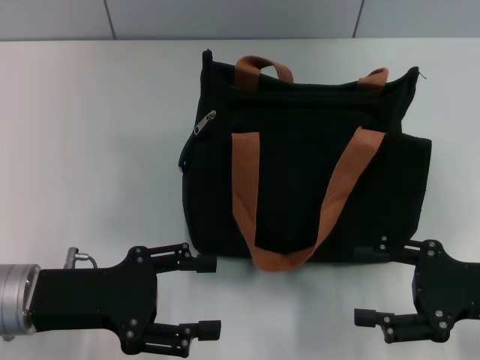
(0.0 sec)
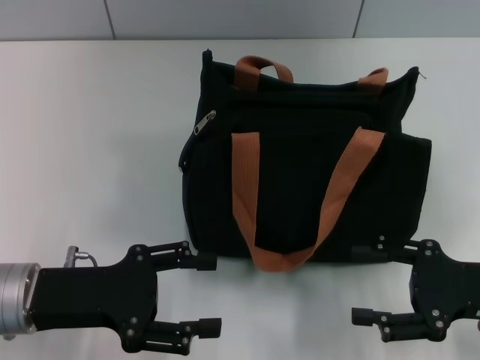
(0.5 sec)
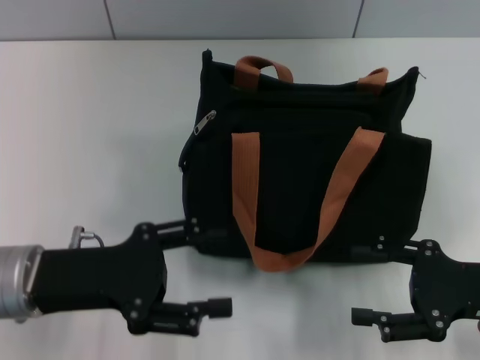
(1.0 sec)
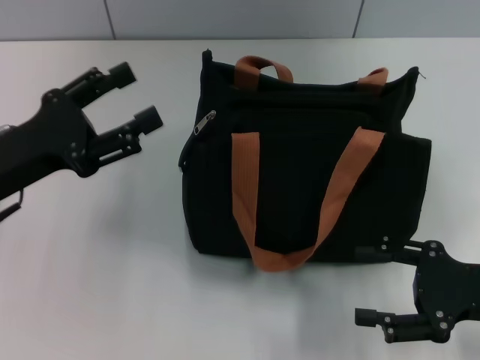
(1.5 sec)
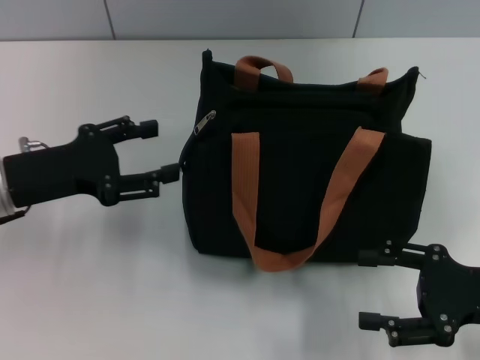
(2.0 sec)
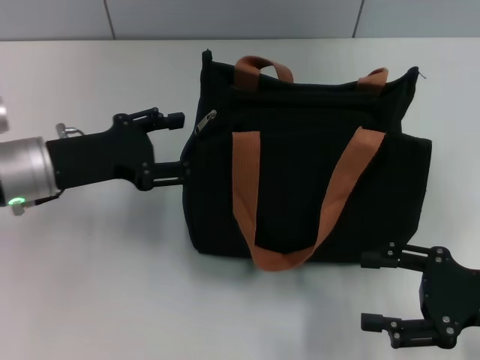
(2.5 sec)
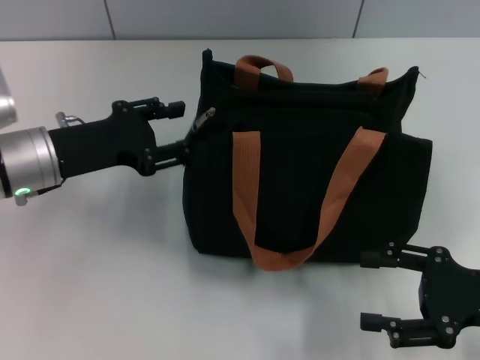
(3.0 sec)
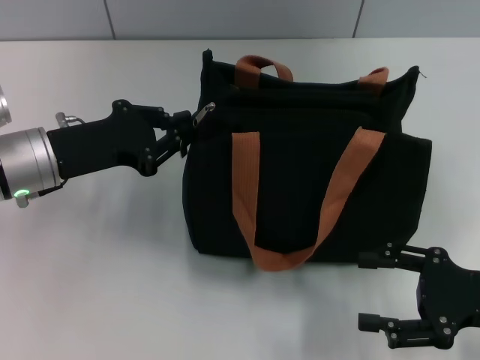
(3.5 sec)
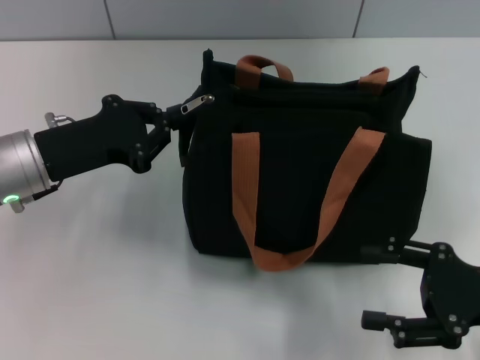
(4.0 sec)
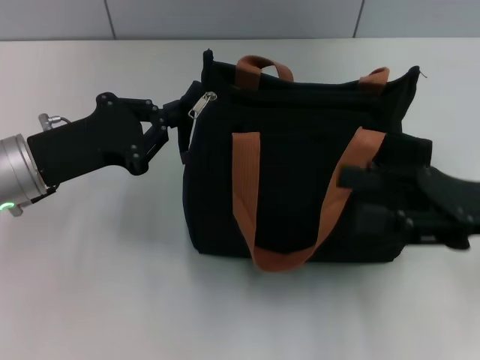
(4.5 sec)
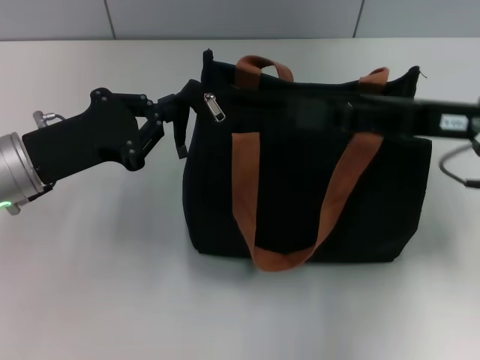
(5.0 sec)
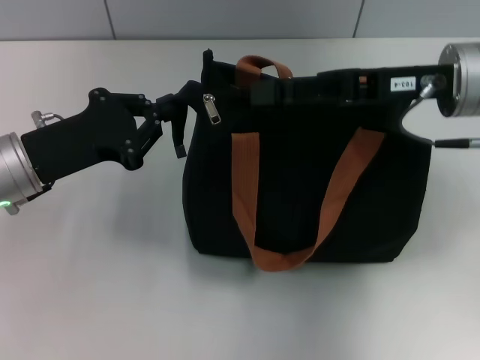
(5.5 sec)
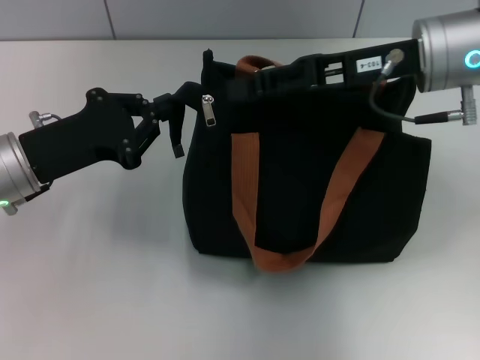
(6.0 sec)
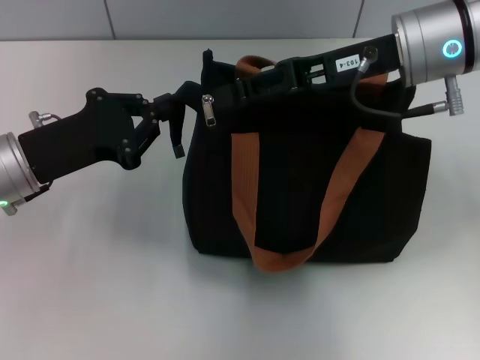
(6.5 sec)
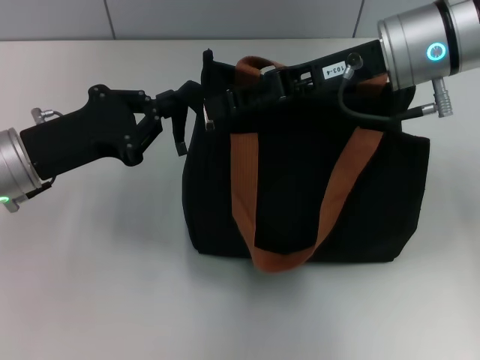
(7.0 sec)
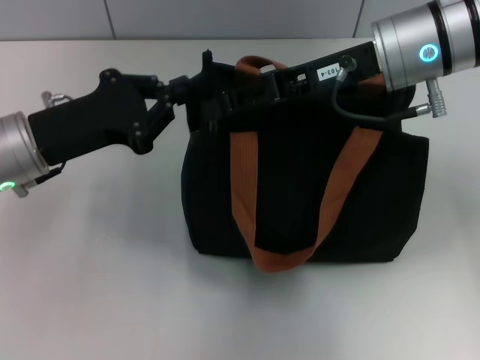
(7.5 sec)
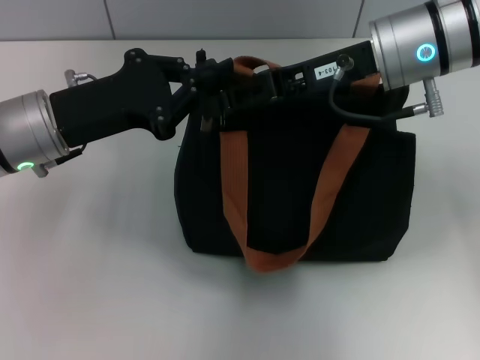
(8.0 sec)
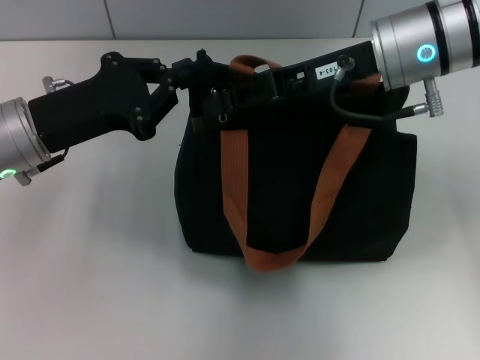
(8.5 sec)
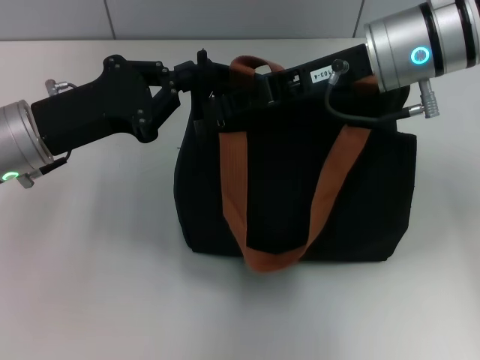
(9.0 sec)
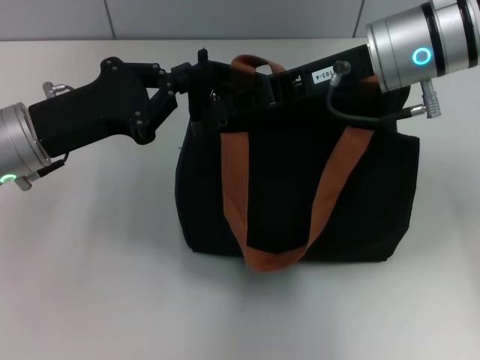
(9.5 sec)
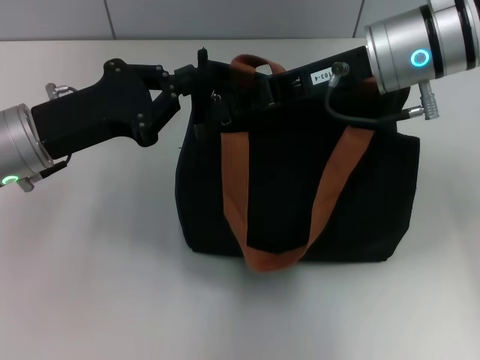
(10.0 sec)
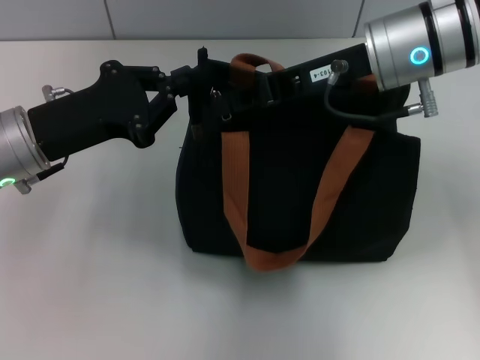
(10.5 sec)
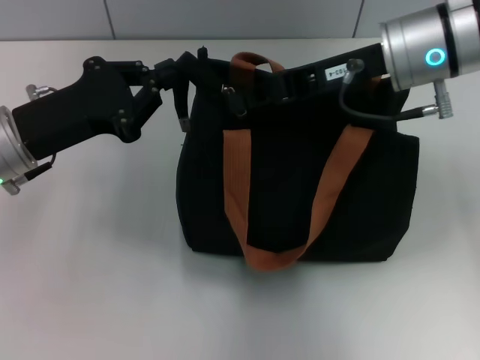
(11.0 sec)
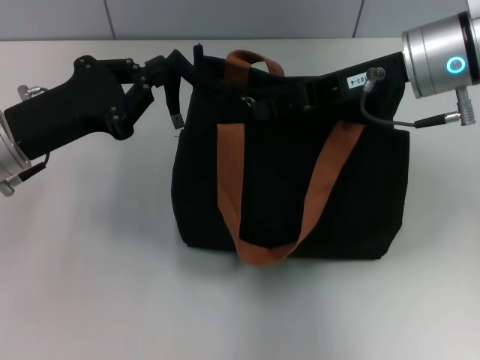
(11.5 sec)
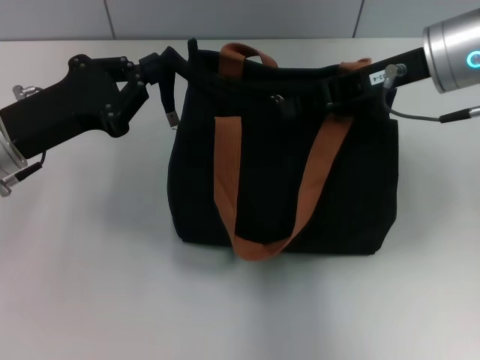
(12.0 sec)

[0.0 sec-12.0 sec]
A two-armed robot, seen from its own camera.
0.0 sec to 2.0 sec: The left gripper is displaced forward by about 10 cm.
2.0 sec to 4.0 sec: The left gripper closes its fingers.
4.0 sec to 6.0 sec: The right gripper moves forward, upward and to the left, about 25 cm, and closes up.
6.0 sec to 8.0 sec: The left gripper shifts by roughly 5 cm.
8.0 sec to 10.0 sec: The right gripper closes up.

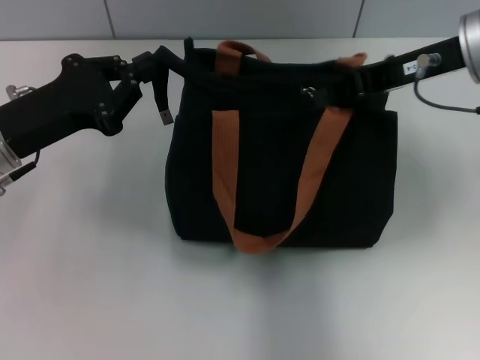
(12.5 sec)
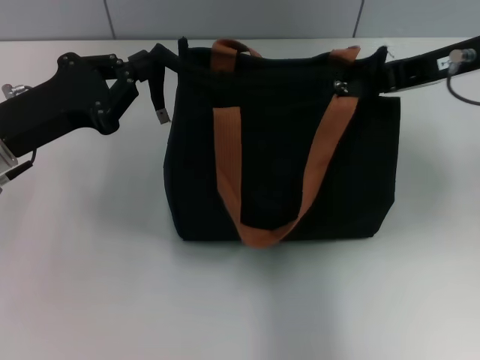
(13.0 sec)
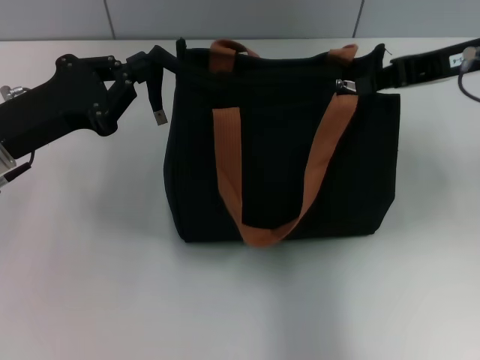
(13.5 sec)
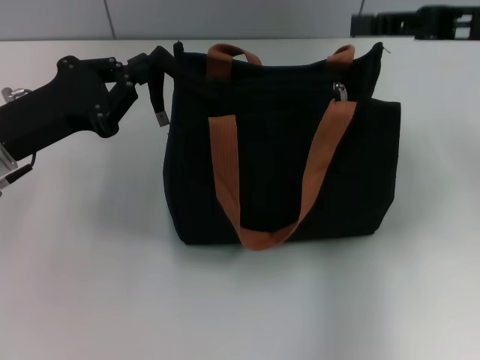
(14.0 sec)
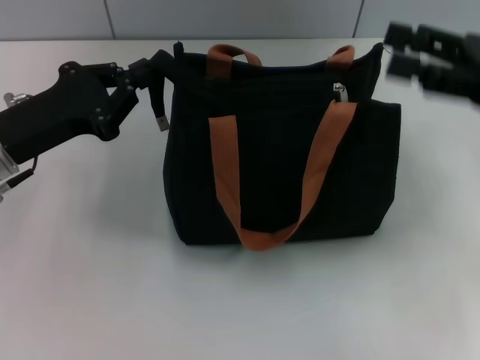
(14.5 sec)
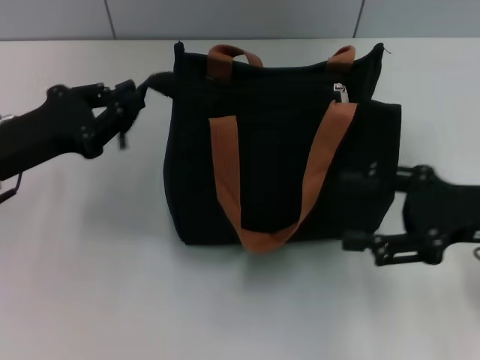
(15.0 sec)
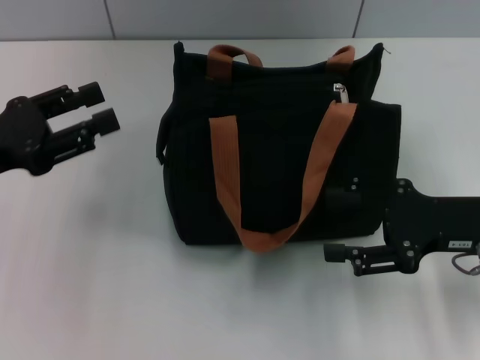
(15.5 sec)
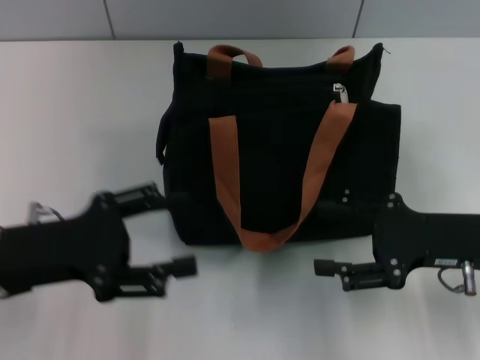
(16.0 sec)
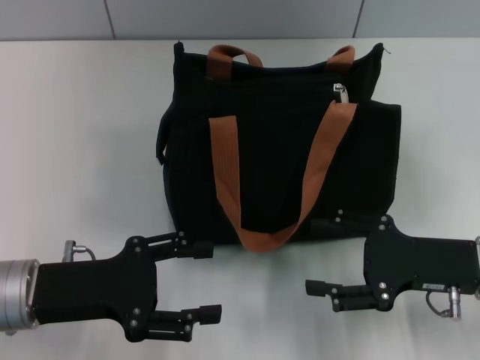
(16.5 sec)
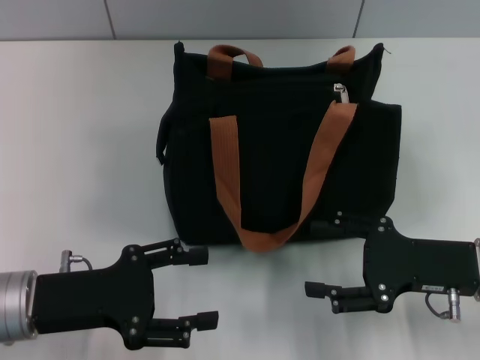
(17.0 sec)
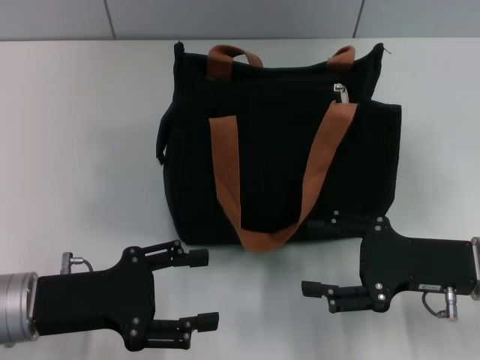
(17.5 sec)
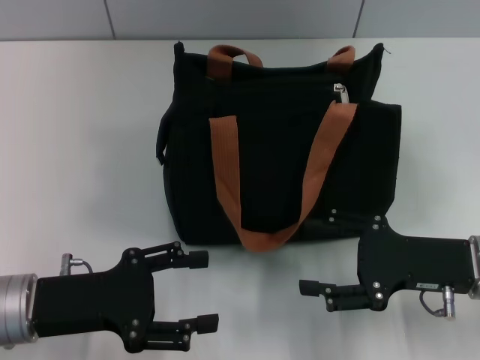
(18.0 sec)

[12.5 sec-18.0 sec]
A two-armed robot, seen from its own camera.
Step, 14.0 sec to 15.0 sec: Grab the zipper with your left hand.
12.5 sec to 14.5 sec: The right gripper heads to the right, backward and downward, covering about 10 cm, and opens.
14.5 sec to 16.0 sec: The right gripper moves downward, some 10 cm. The left gripper heads backward, covering some 5 cm, and opens up.
16.0 sec to 18.0 sec: The left gripper shifts by approximately 5 cm.

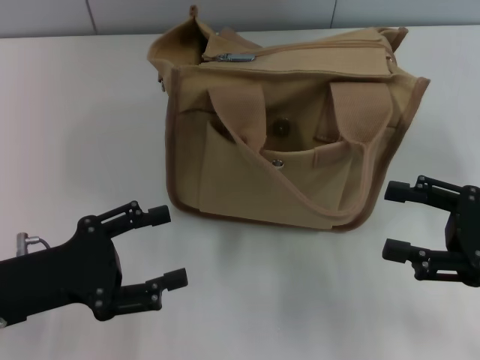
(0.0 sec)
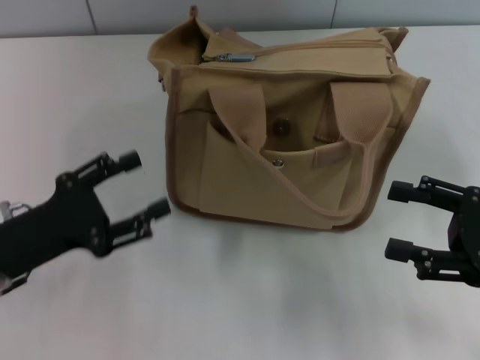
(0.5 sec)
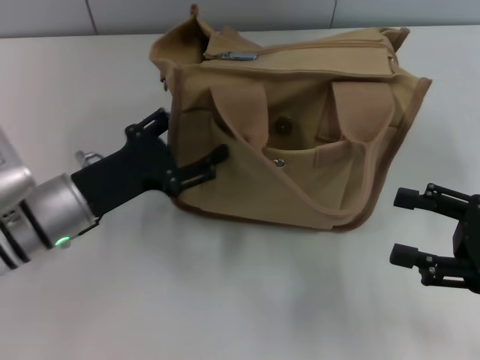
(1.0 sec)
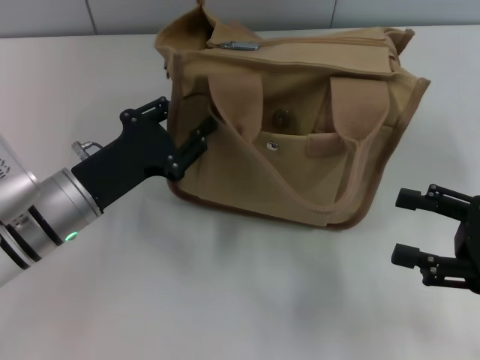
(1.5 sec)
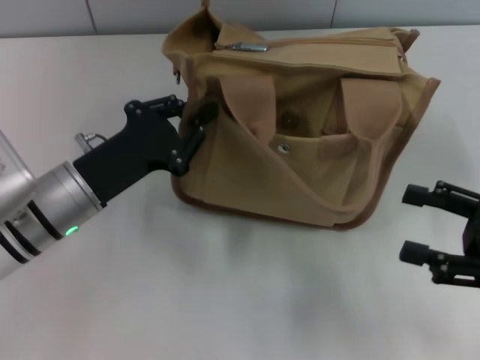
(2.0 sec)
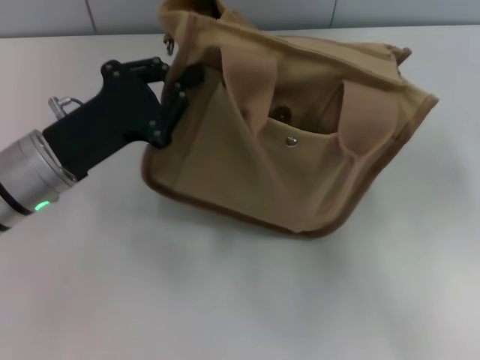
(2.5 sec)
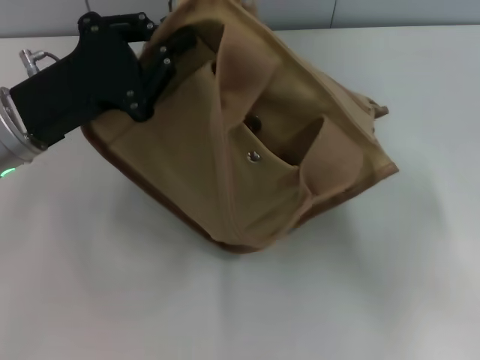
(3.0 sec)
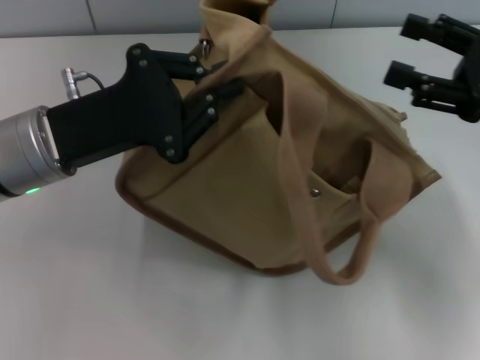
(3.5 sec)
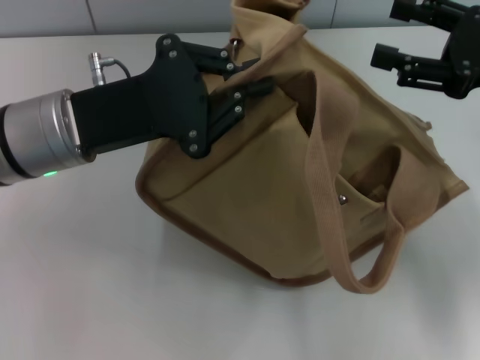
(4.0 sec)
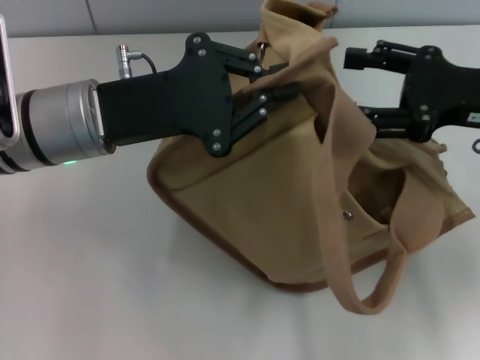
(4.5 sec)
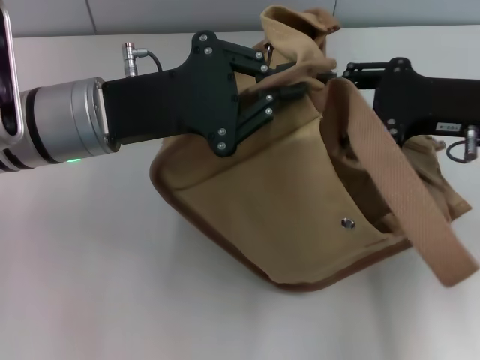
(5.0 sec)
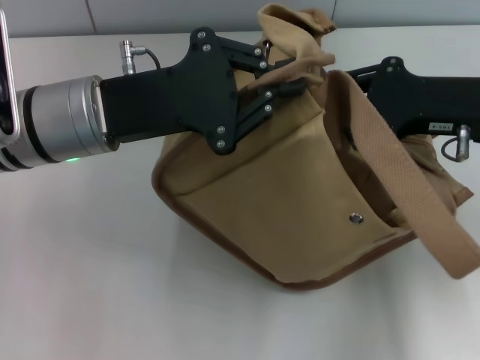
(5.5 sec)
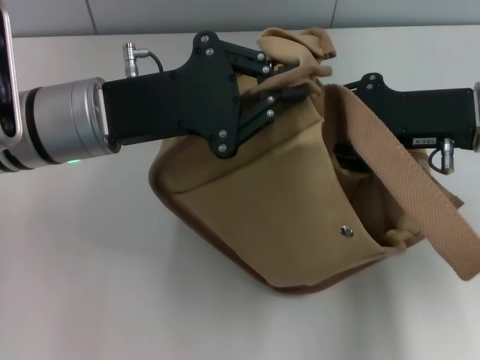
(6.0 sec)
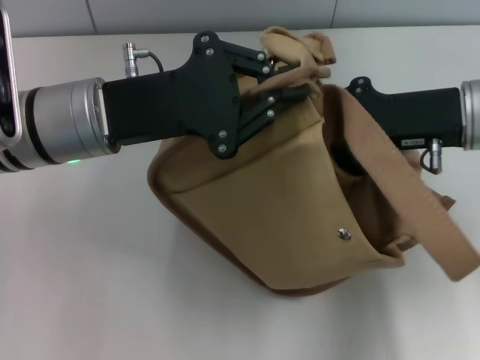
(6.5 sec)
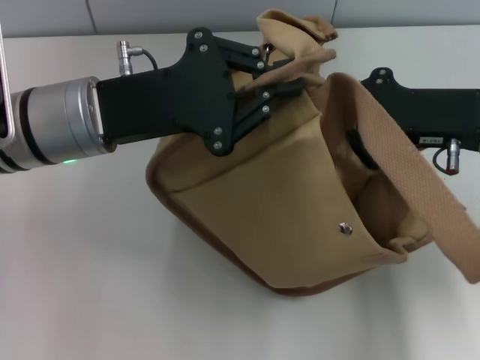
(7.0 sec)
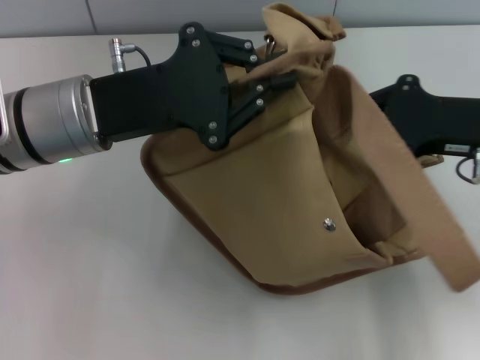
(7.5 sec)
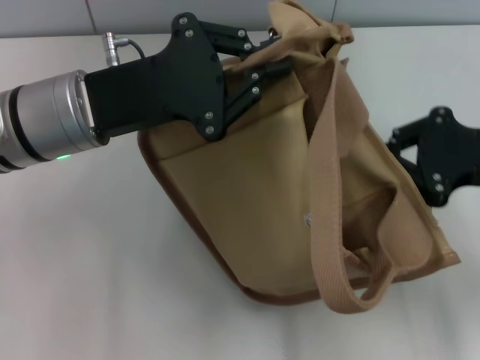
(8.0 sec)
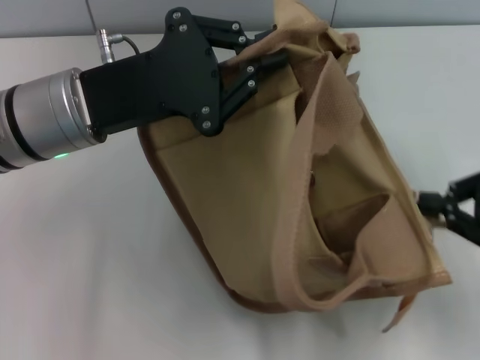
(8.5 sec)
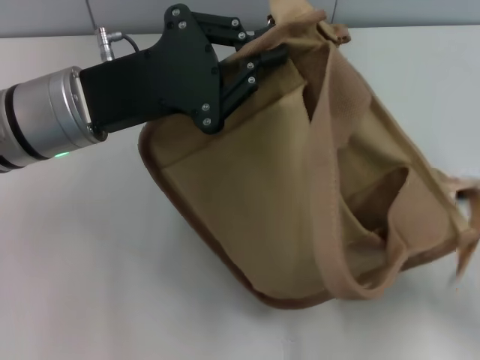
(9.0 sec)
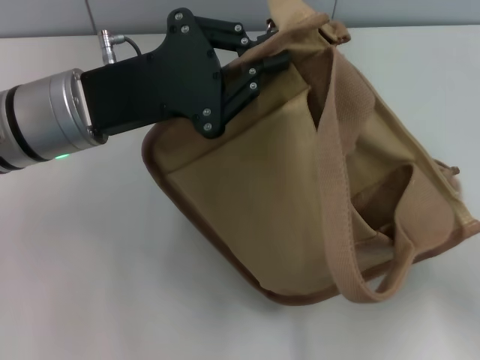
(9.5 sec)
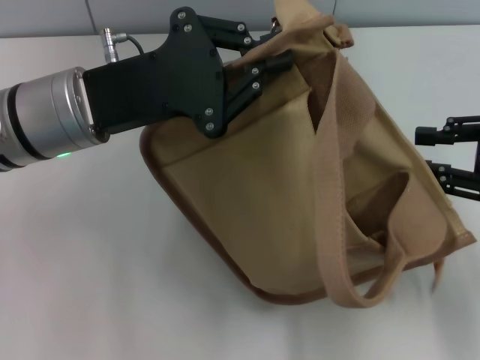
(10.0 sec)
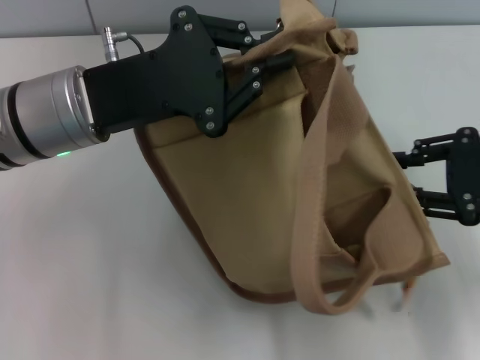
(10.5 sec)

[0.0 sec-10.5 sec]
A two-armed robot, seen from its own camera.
Step, 0.0 sec to 9.0 sec: Pull open the zipper with your right hand.
0.0 sec to 2.0 sec: The left gripper heads forward and to the right, covering about 10 cm, and closes.
2.0 sec to 4.0 sec: The left gripper shifts roughly 10 cm upward; the right gripper travels forward and upward by about 15 cm.
4.0 sec to 6.5 sec: The right gripper goes about 5 cm to the left, and closes up.
6.5 sec to 8.5 sec: The right gripper travels to the right and backward by roughly 15 cm, and closes up.
8.5 sec to 10.5 sec: The right gripper opens its fingers.
